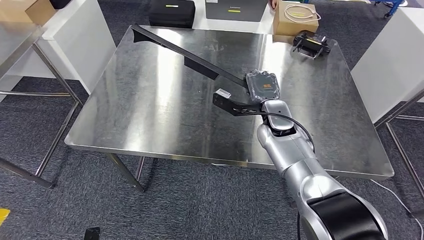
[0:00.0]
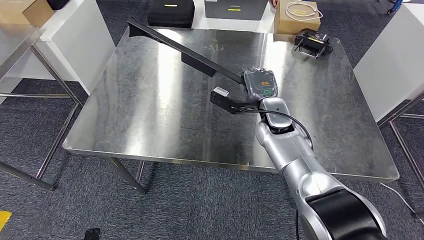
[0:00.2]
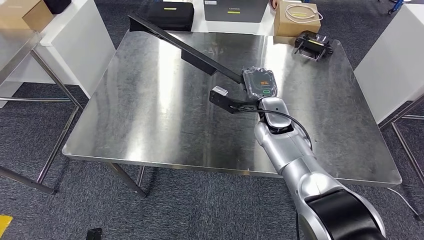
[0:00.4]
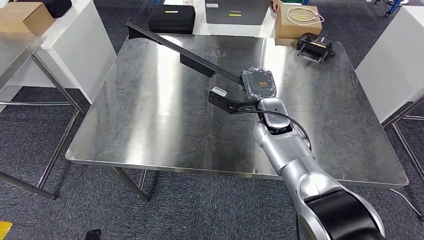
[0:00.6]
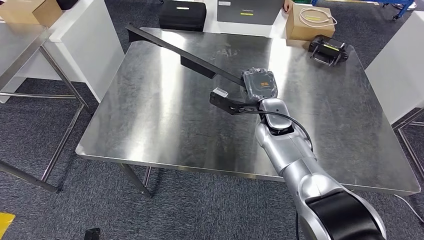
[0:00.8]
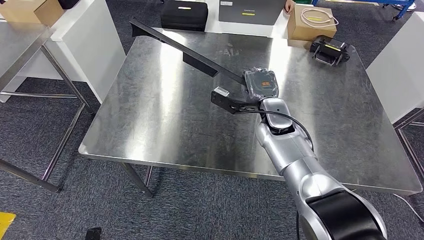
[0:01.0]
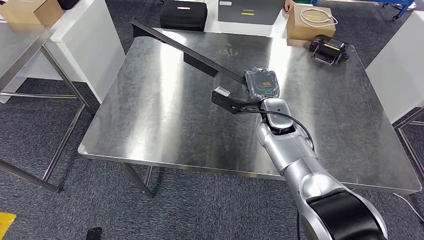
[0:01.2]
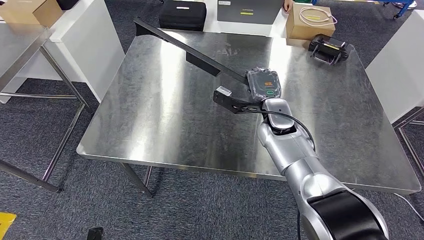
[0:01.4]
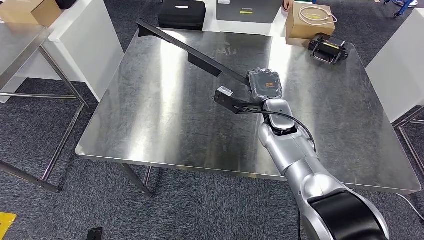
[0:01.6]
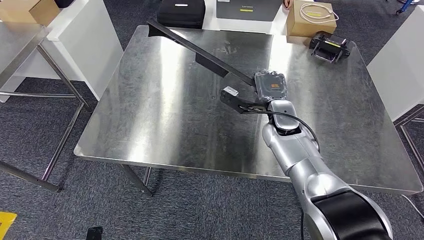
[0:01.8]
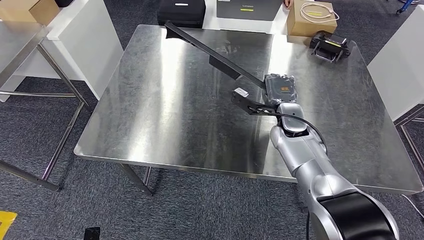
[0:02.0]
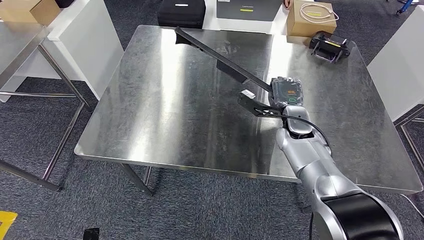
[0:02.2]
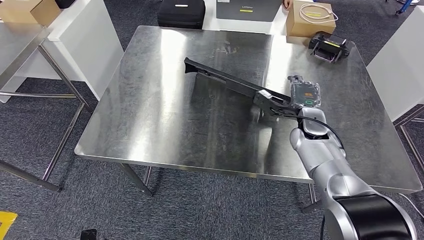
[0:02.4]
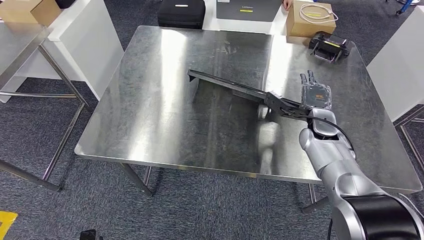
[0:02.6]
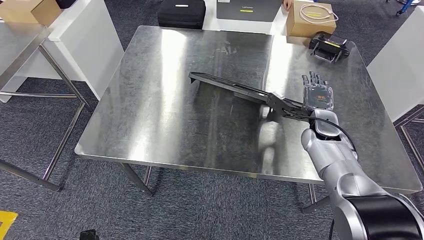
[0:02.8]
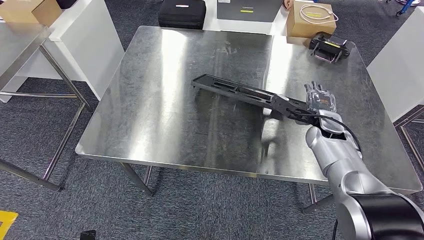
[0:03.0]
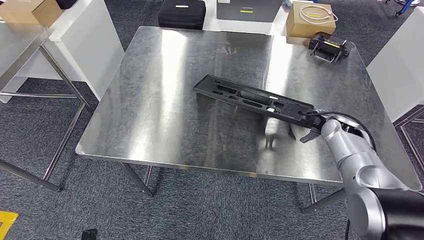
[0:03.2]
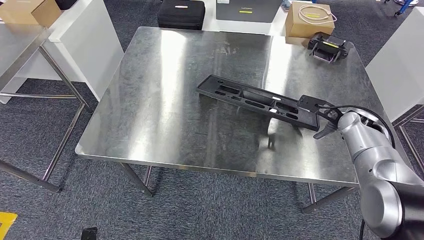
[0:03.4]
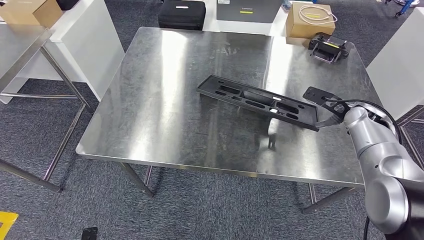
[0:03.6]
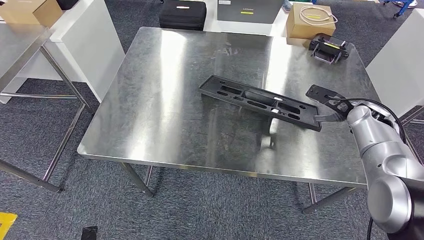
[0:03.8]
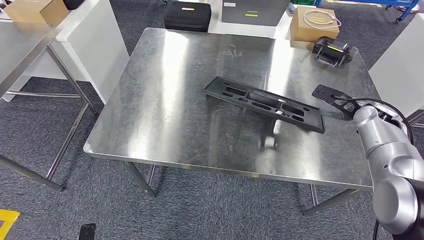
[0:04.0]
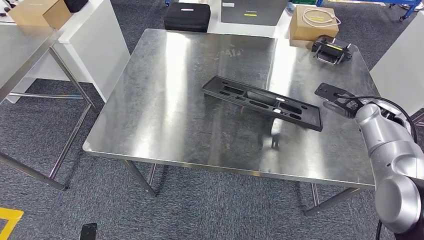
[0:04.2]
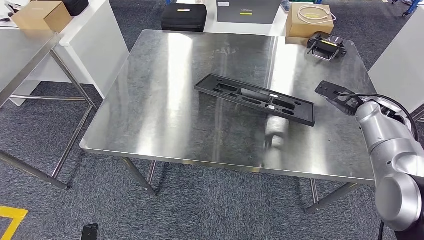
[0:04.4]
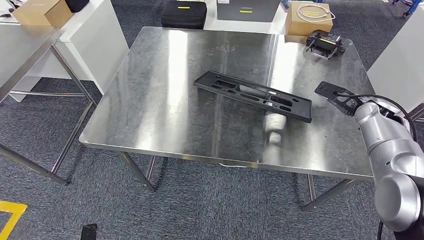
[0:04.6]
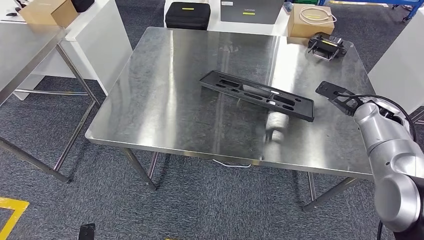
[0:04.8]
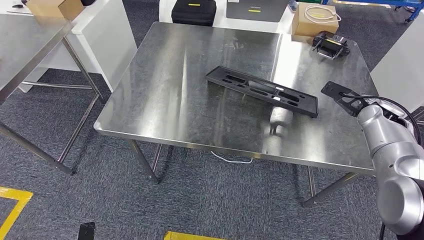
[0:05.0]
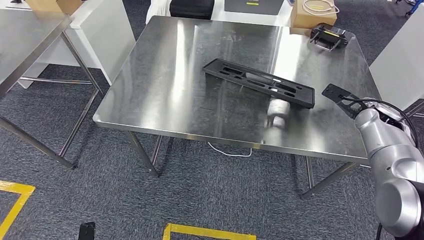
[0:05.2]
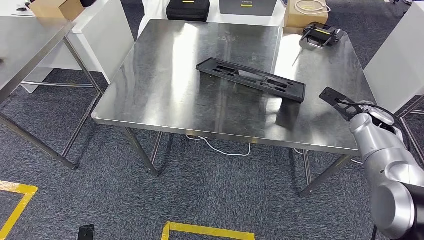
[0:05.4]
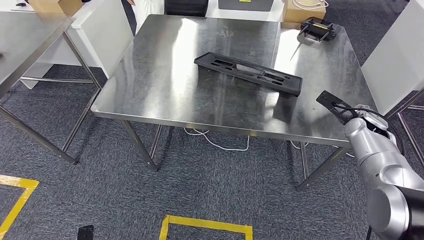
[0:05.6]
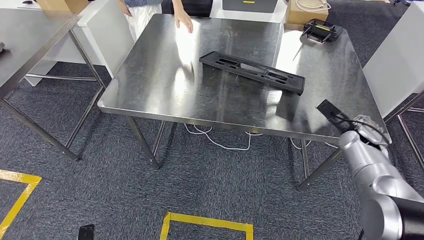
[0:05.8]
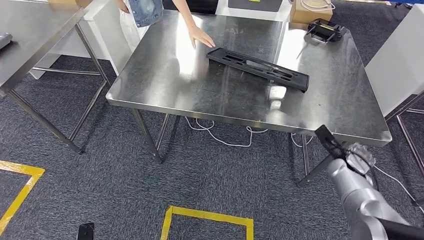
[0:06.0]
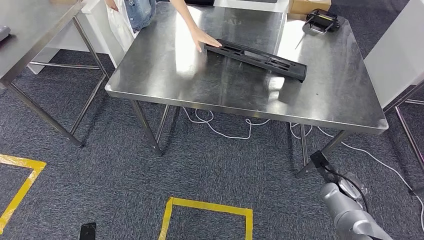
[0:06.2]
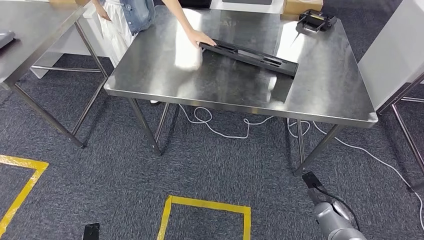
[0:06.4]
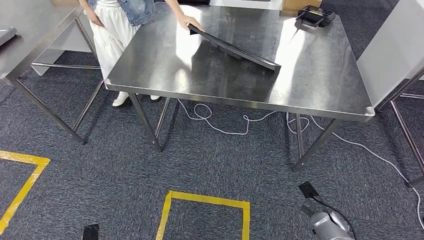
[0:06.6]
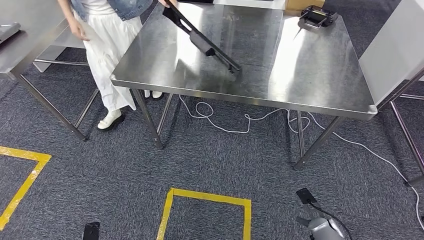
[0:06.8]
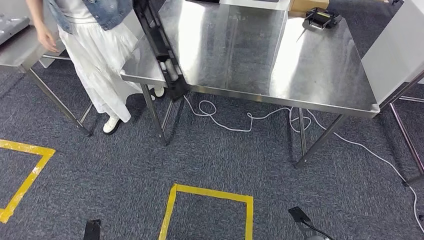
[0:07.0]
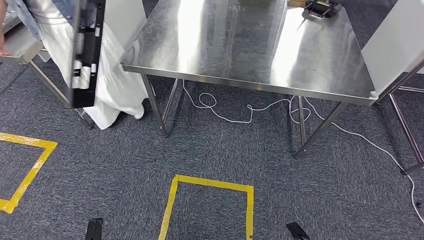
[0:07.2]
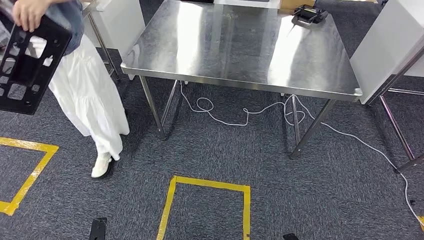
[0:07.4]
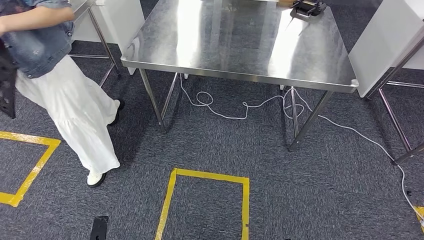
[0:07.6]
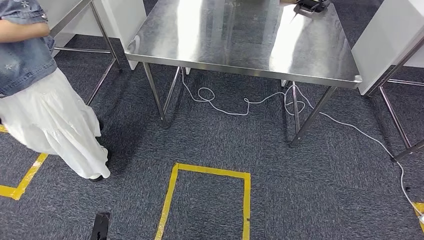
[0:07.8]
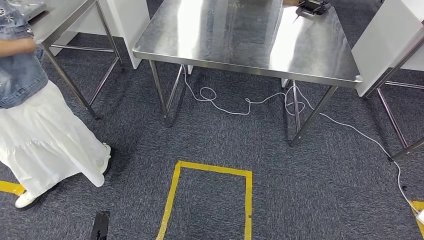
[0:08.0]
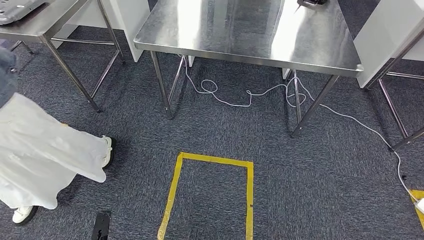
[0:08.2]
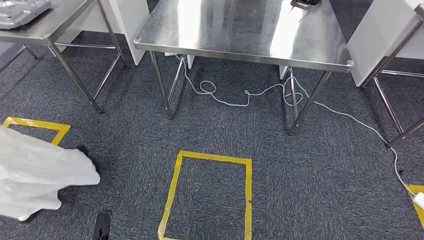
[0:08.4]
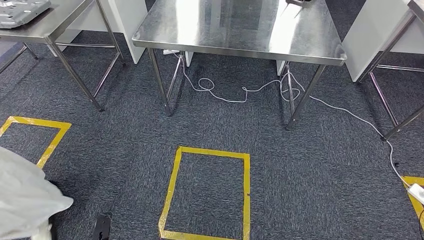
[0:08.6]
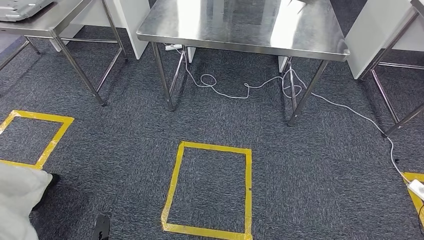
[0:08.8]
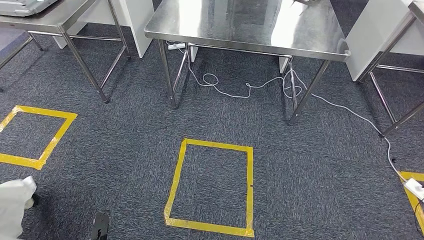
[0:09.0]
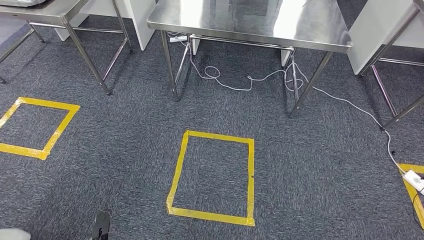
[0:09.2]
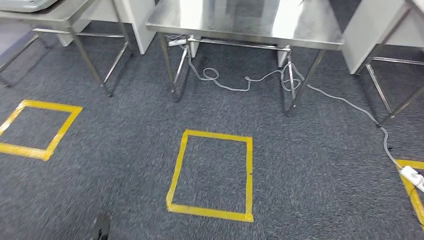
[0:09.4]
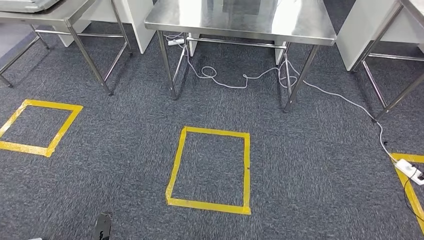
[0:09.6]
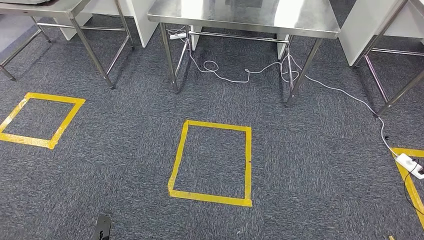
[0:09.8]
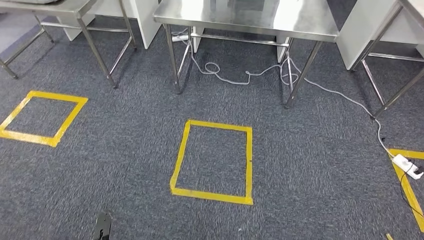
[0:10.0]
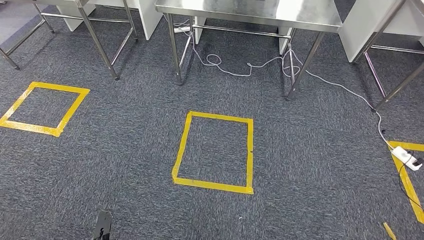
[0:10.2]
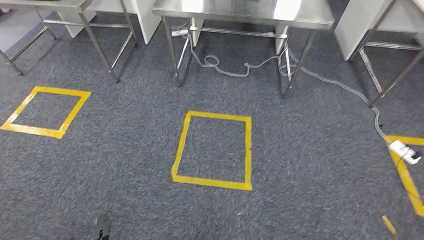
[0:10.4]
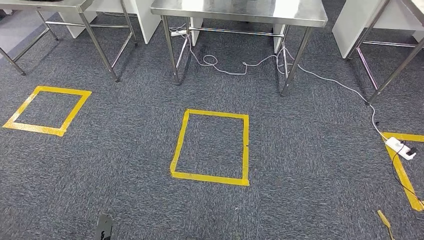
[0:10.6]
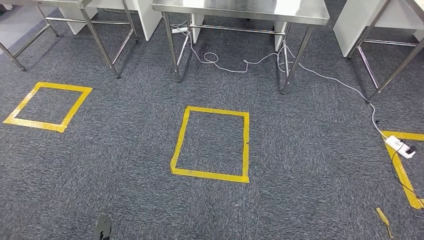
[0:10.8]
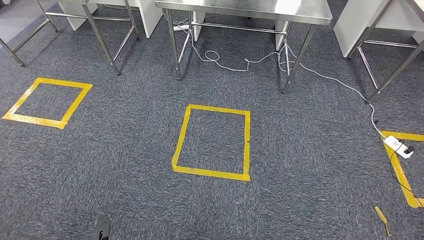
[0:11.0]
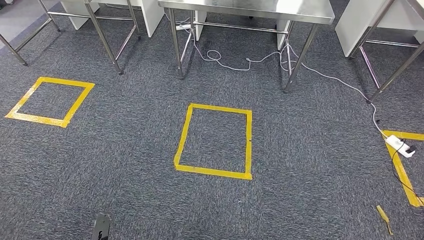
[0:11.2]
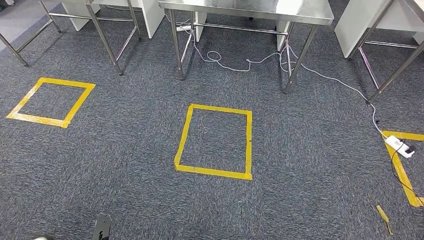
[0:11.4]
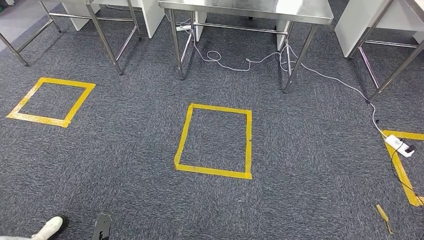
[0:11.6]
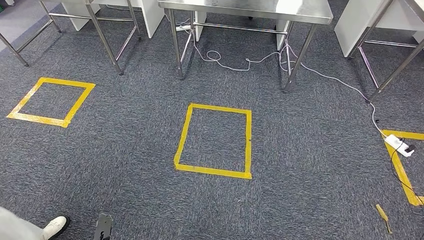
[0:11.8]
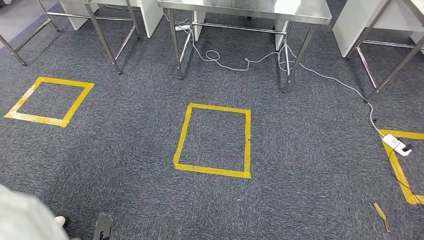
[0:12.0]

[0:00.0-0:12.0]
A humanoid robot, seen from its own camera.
Step, 0:00.0 to 0:05.8: Insert the large material into the corresponding slot on the workbench.

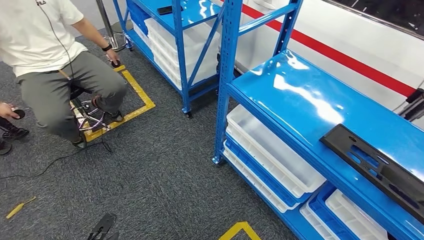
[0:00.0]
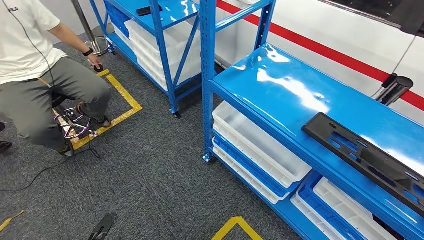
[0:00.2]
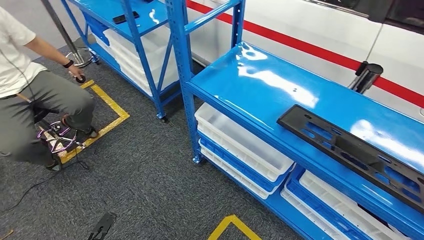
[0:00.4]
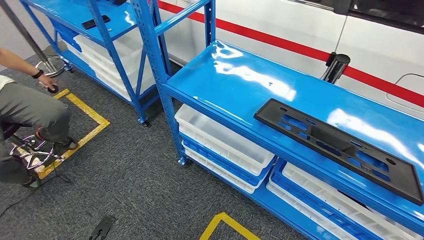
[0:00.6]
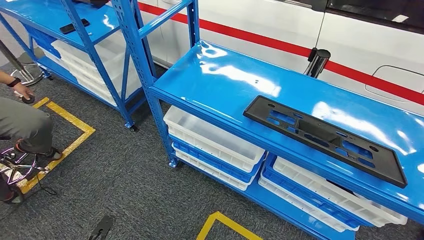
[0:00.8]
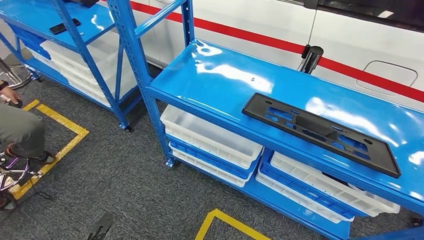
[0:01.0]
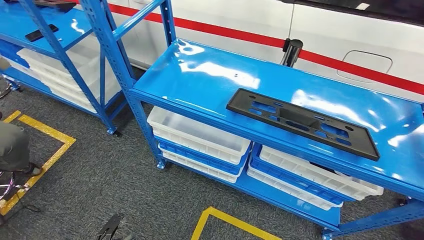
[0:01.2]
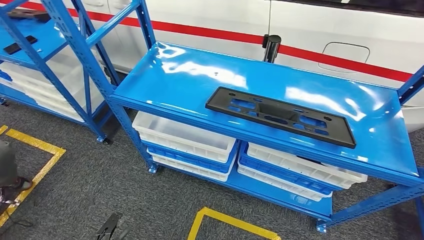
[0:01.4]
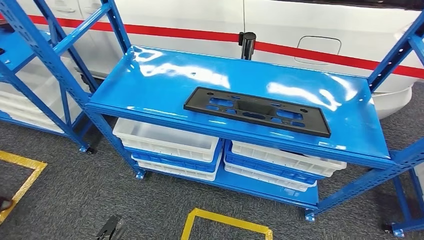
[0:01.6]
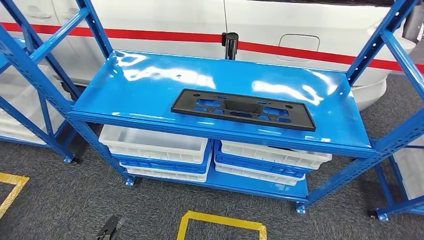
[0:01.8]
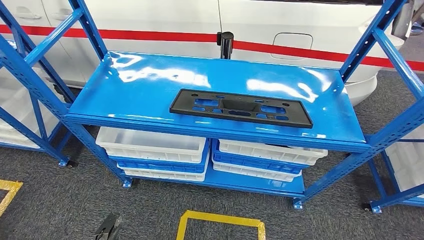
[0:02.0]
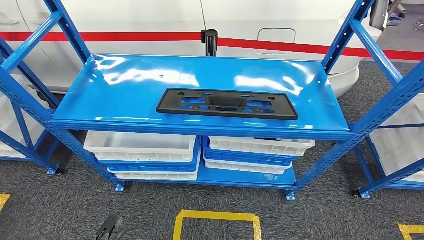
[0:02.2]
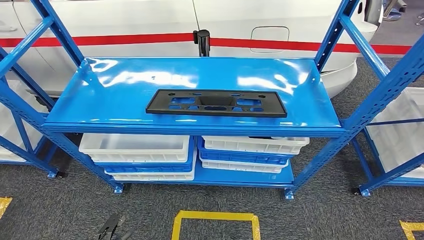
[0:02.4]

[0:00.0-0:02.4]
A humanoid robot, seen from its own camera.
Step, 0:00.0 to 0:02.4: Move to the initial position of the shelf.
